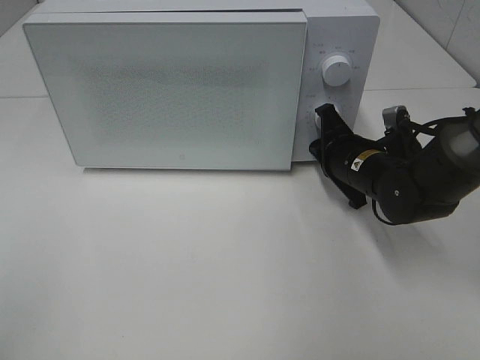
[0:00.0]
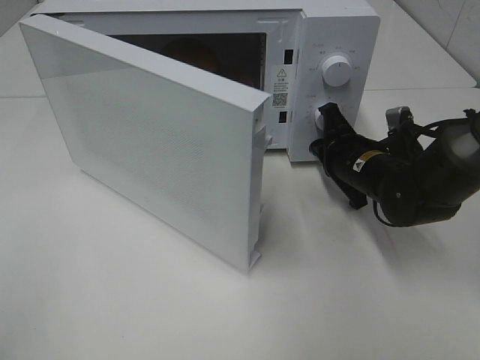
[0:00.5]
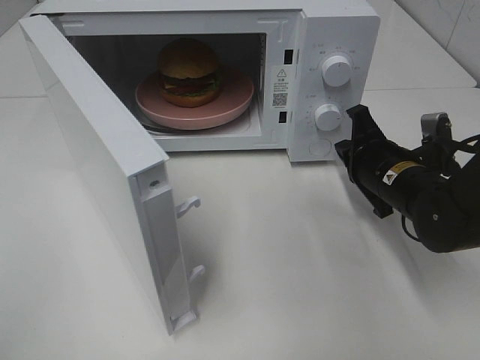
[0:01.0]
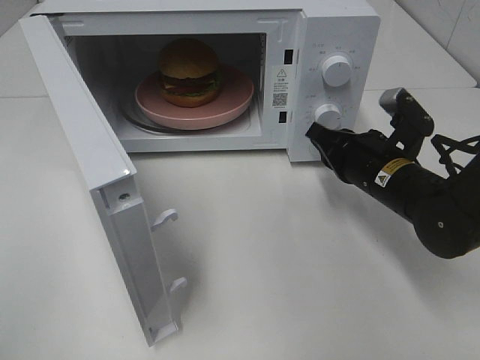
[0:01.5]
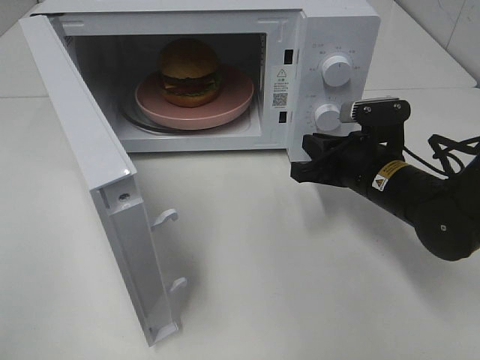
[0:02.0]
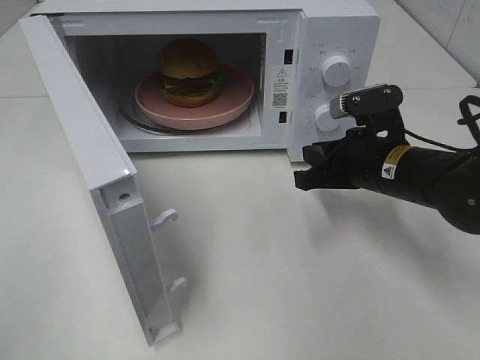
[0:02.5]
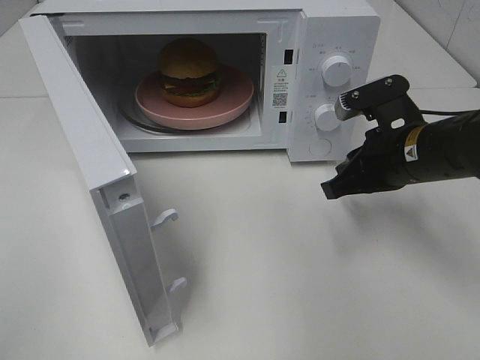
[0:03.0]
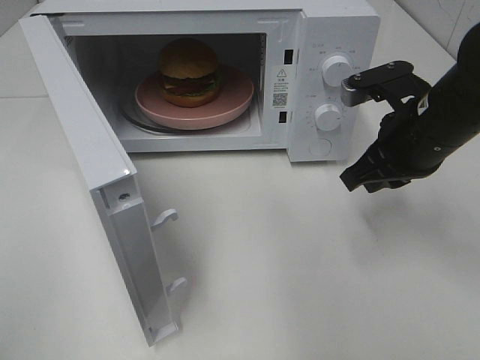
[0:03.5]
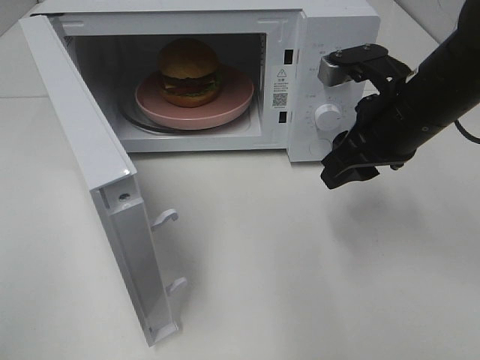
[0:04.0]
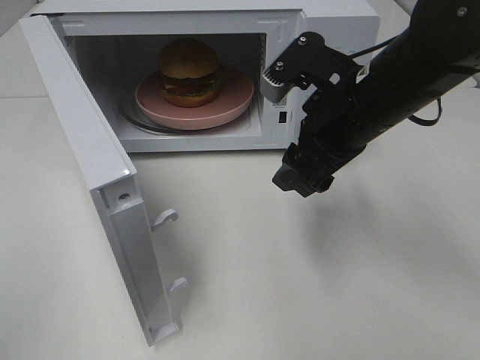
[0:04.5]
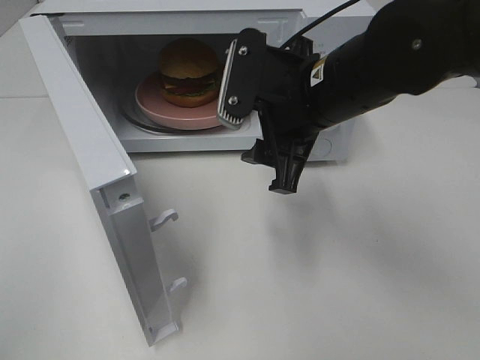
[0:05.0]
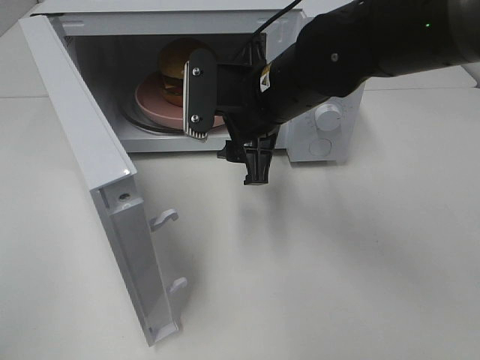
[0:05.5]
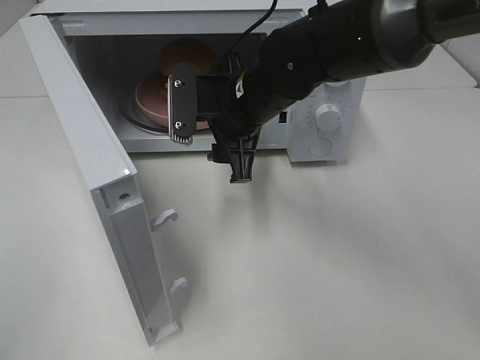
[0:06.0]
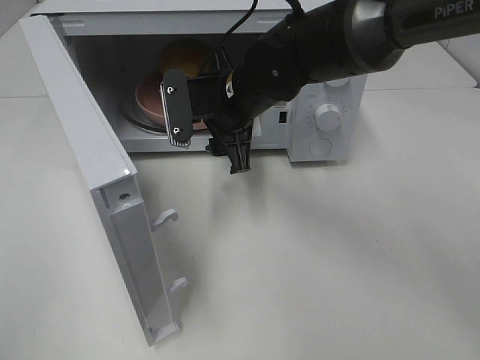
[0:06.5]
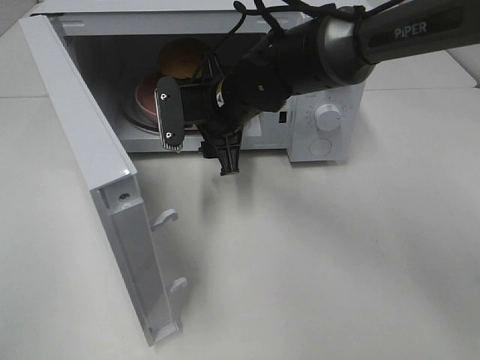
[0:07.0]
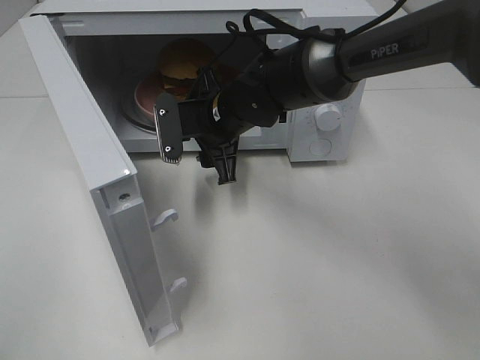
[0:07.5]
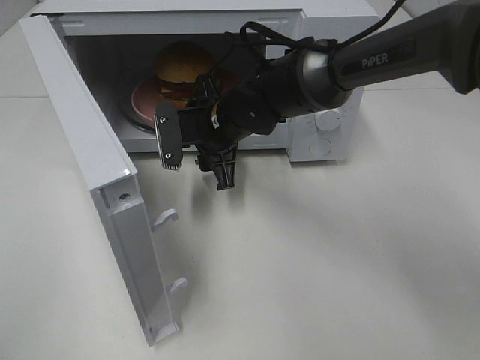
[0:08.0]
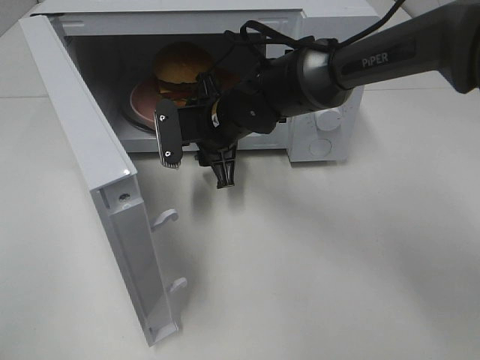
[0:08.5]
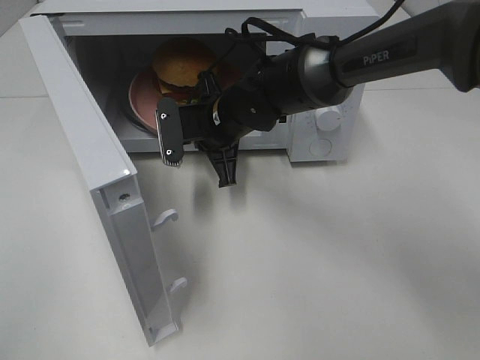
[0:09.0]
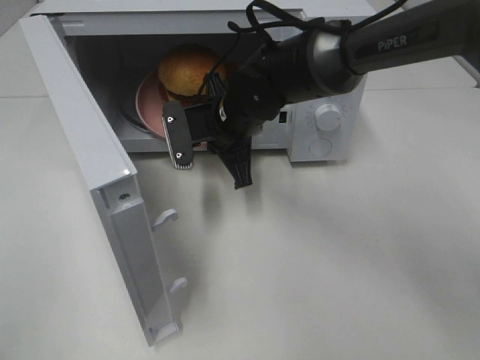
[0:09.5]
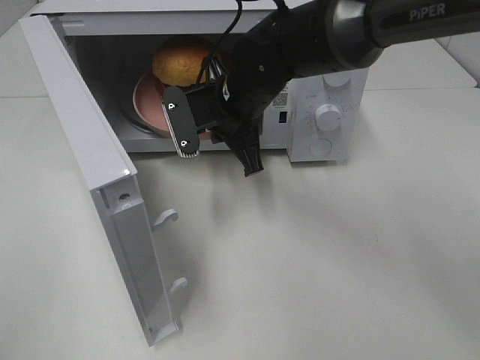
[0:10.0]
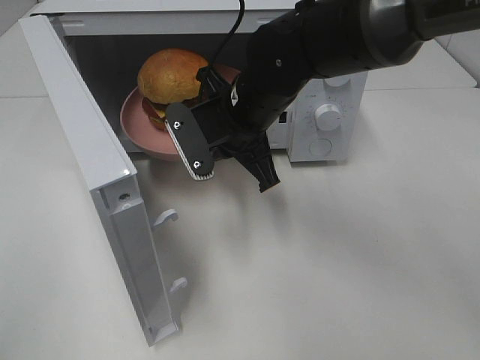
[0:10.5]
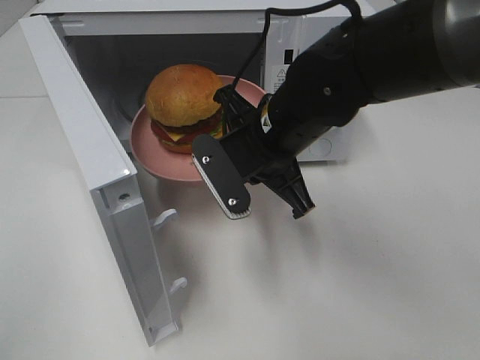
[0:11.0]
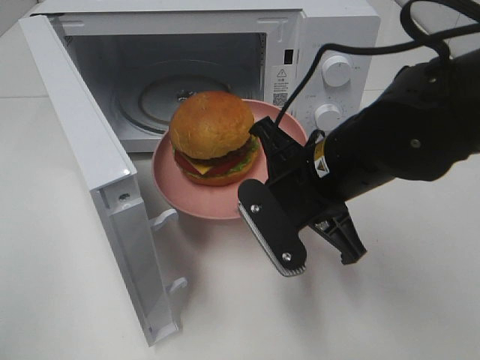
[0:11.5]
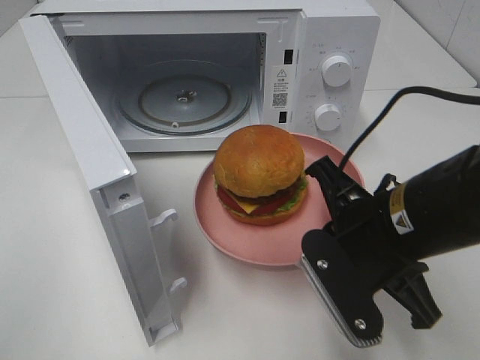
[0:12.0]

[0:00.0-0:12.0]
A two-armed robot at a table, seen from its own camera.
Task of the whole recording: Heat the burger.
Step, 0:01.0 to 0:08.5: Right hand: grab the plate with the hamburger.
0:00.0 to 0:02.0: The right gripper changes place by roughly 5 cm.
0:02.0 to 0:04.0: The right gripper goes approximately 10 cm upward, and opens up.
0:04.0 to 0:06.0: The right gripper travels to the left by about 15 cm.
0:06.0 to 0:08.0: The right gripper travels downward by approximately 5 cm.
0:08.0 to 0:10.0: The right gripper shifts roughly 5 cm upward, and closes its fingers.
0:10.0 to 0:12.0: The right gripper travels backward and to the right by about 25 cm.

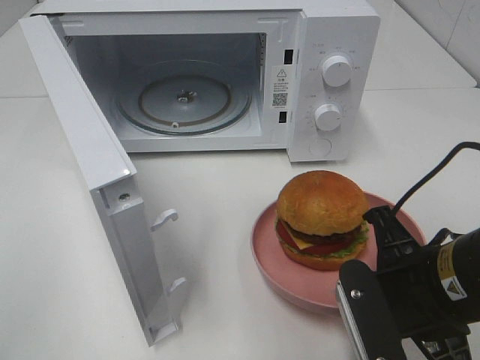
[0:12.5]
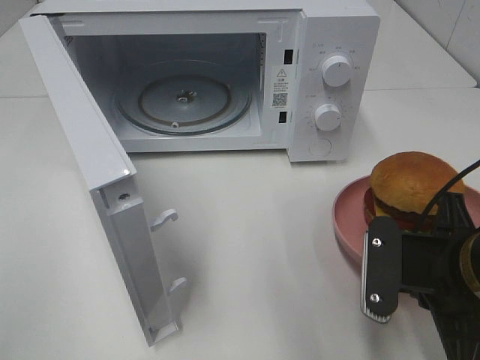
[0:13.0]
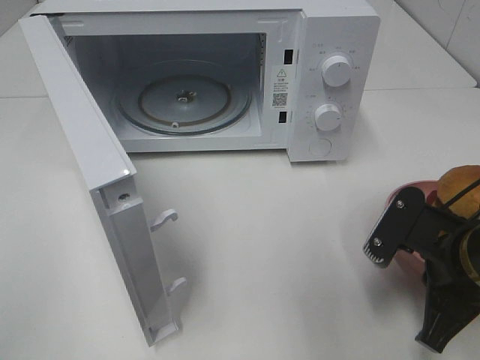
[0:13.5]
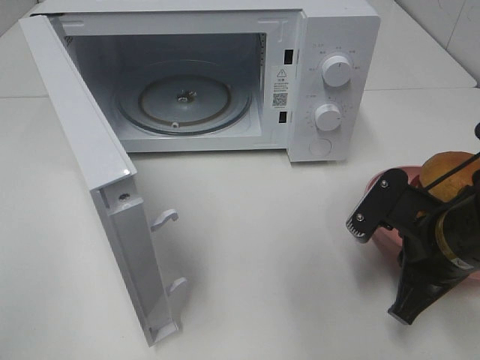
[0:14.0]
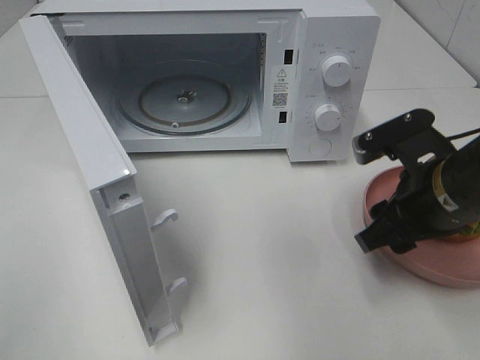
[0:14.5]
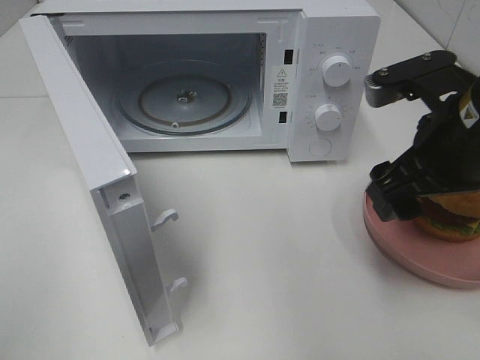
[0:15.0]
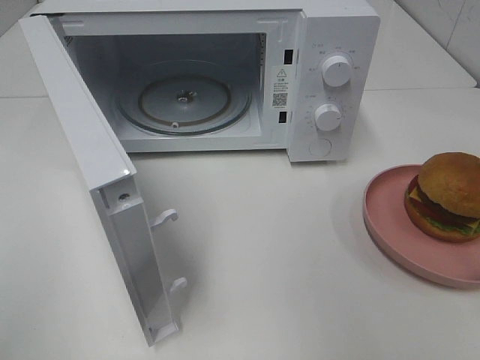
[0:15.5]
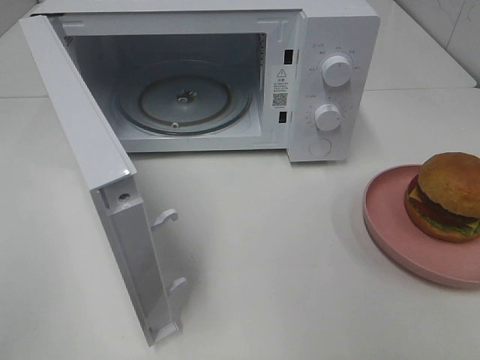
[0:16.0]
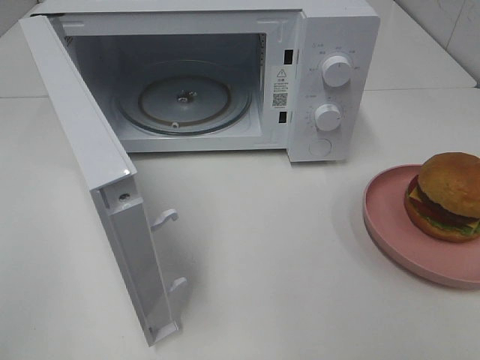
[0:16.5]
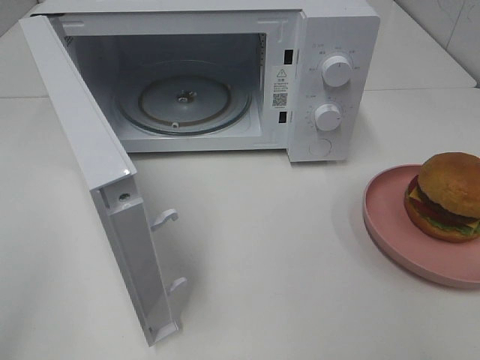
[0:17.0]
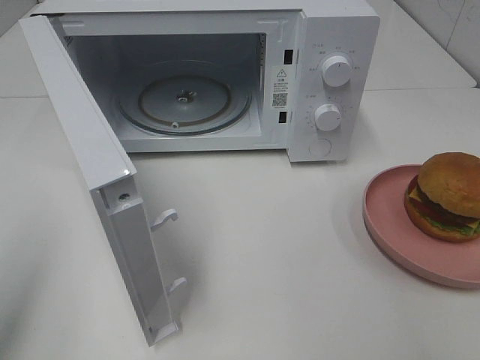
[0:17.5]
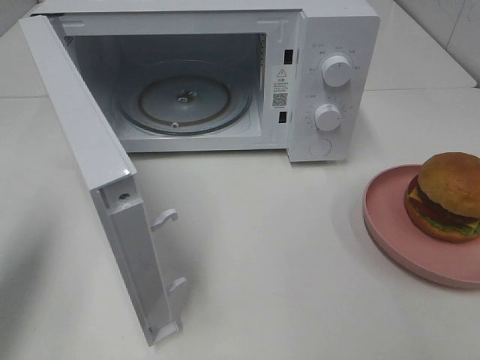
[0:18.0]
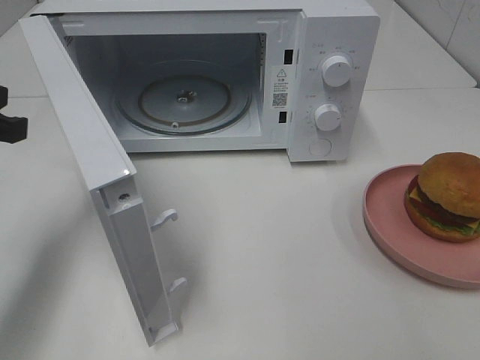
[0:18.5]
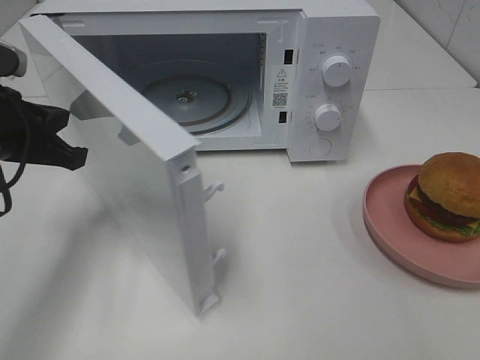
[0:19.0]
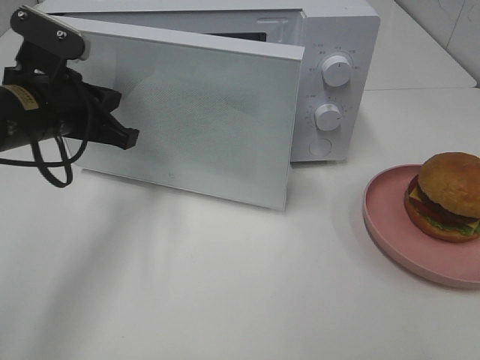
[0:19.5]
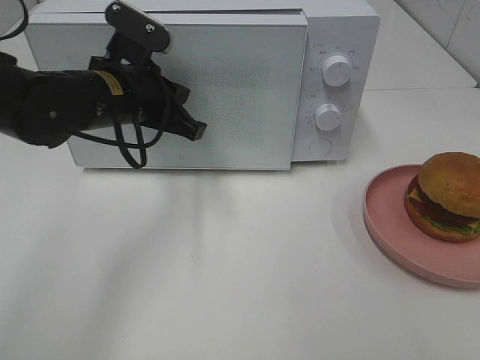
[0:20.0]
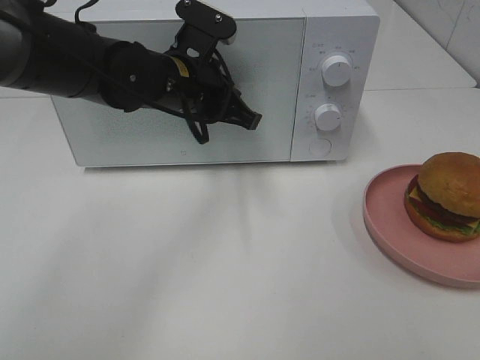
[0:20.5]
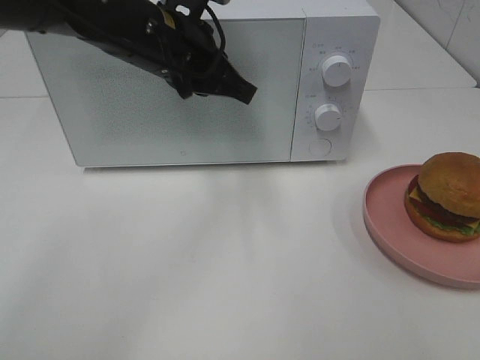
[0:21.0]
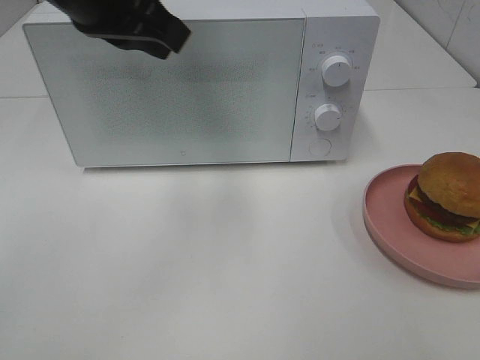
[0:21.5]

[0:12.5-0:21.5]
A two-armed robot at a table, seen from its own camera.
Task of the whole recording: Heat the burger.
Step, 0:14.5 to 0:20.5: Left hand: close the microwave door.
0:12.5 to 0:14.5: The right gripper goes roughly 5 cm forward, and opens.
0:14.5 to 0:17.0: The right gripper is displaced backward, upward and to the right by about 30 cm.
0:17.0 to 0:19.5: The left gripper heads forward, to the right and downward, covering approximately 35 cm.
0:19.5 to 0:21.5: The left gripper travels upward and to the right by approximately 15 cm.

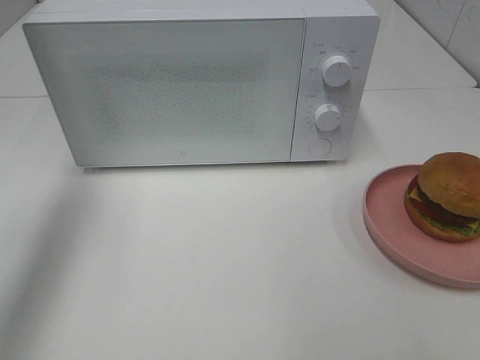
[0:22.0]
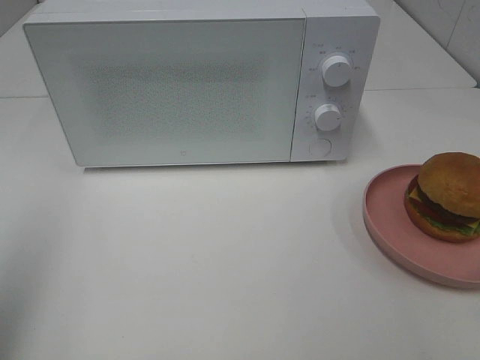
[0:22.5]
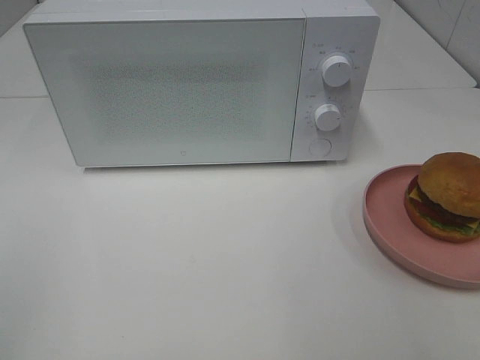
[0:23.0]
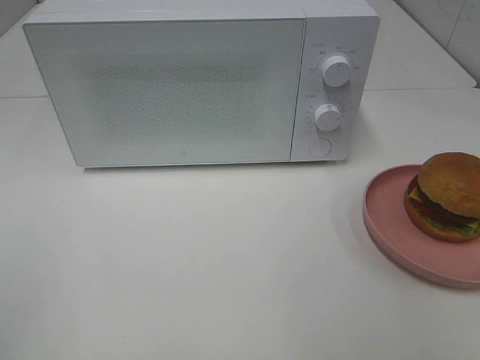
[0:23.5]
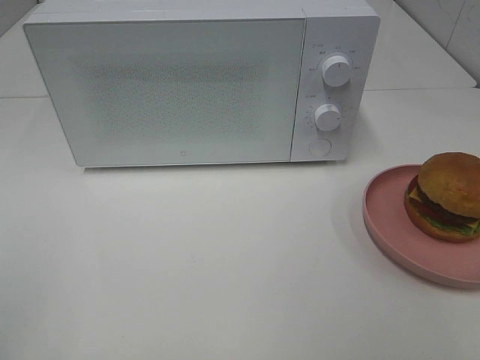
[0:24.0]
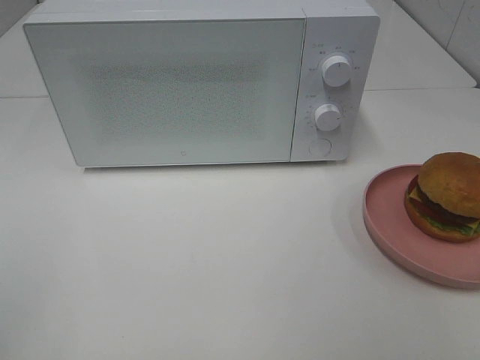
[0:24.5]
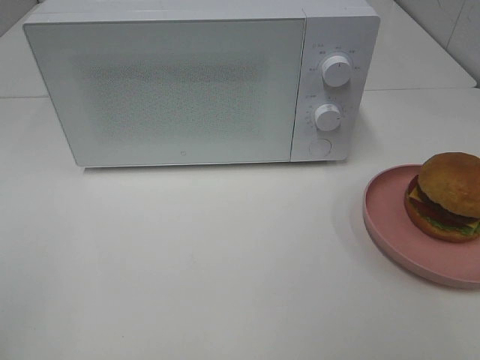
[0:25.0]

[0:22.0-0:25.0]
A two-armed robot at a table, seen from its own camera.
Task of the whole recording: Heat the burger.
0:22.0 to 0:23.5: The left gripper goes roughly 30 cm backward.

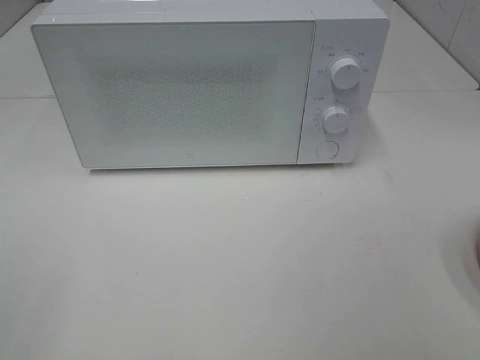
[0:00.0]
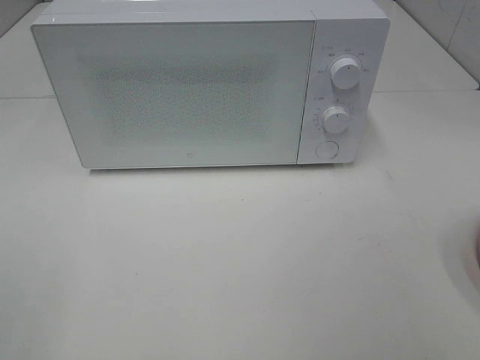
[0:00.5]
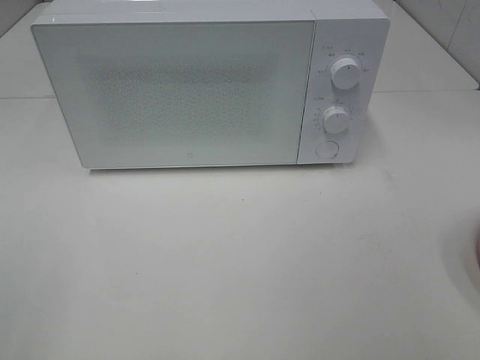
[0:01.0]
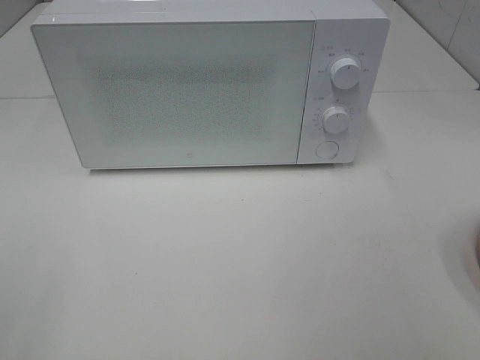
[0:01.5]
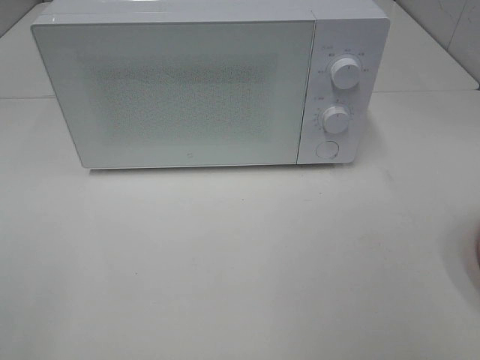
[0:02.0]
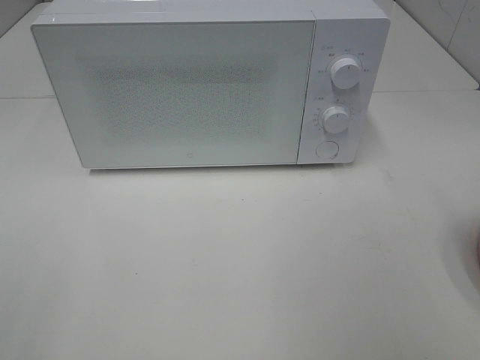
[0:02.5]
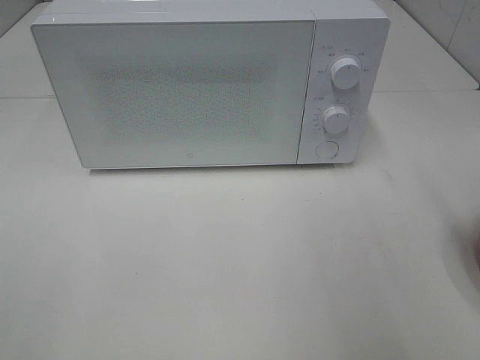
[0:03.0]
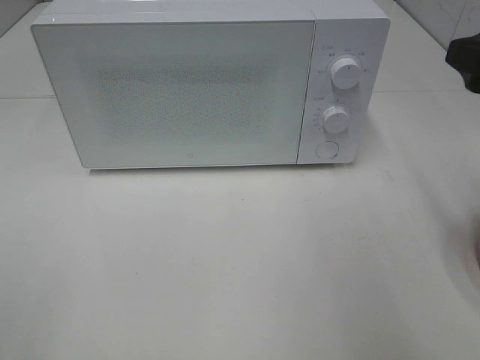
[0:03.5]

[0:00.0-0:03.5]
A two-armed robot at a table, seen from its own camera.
Task of the whole recording: Heat the burger.
0:02.0 to 0:03.5: The right gripper heads forward, covering approximately 15 cm.
